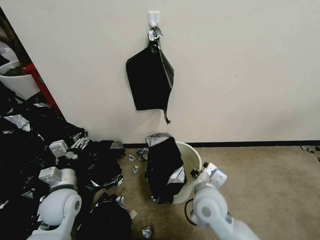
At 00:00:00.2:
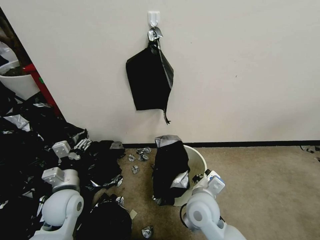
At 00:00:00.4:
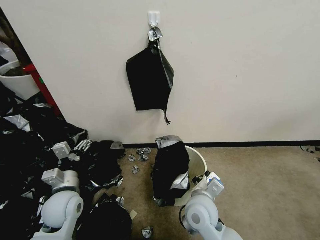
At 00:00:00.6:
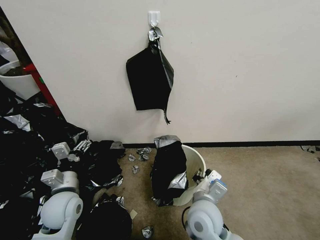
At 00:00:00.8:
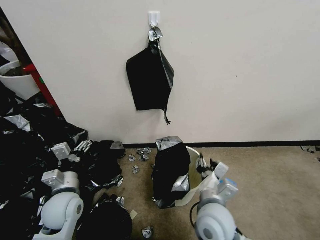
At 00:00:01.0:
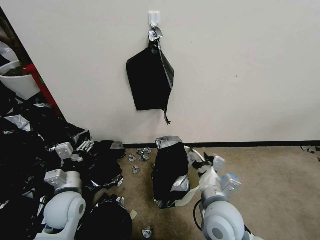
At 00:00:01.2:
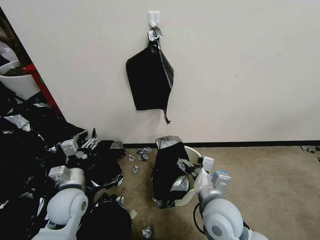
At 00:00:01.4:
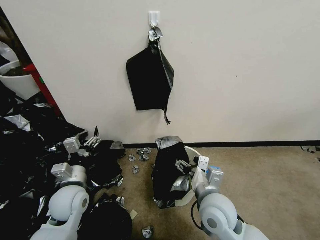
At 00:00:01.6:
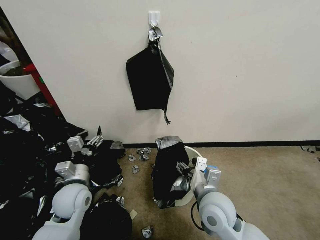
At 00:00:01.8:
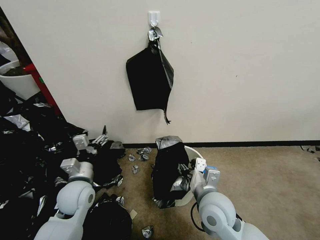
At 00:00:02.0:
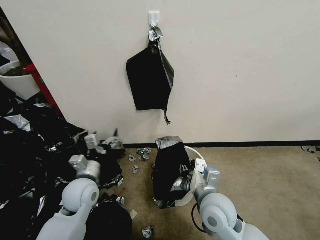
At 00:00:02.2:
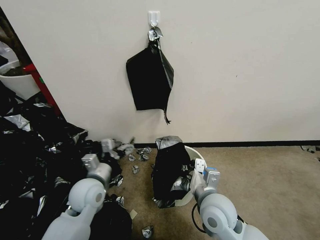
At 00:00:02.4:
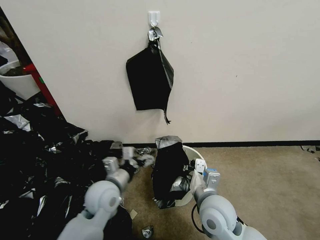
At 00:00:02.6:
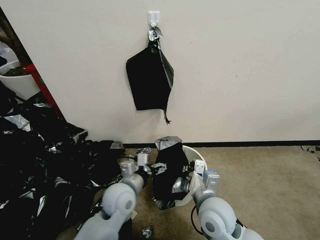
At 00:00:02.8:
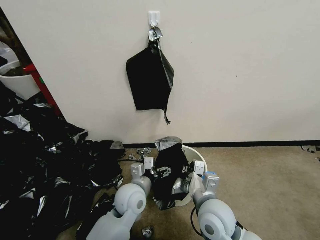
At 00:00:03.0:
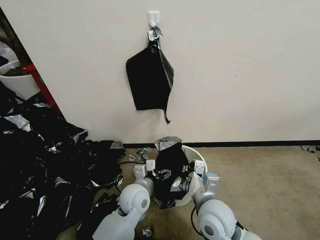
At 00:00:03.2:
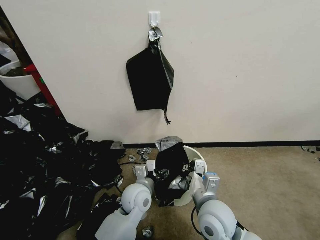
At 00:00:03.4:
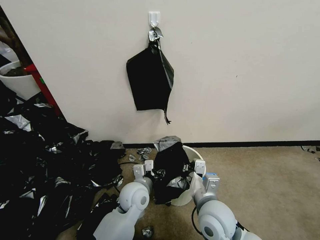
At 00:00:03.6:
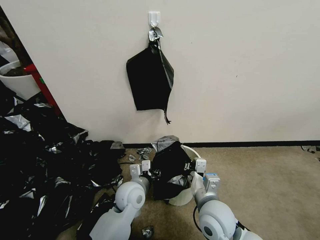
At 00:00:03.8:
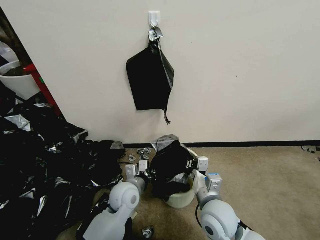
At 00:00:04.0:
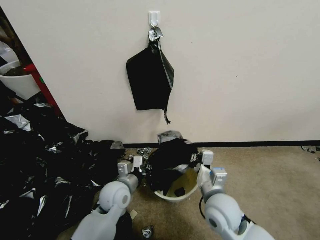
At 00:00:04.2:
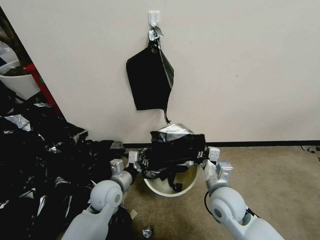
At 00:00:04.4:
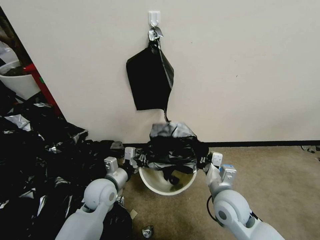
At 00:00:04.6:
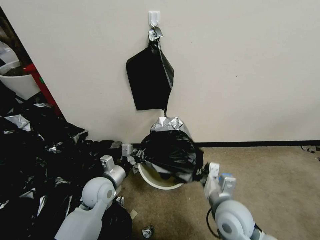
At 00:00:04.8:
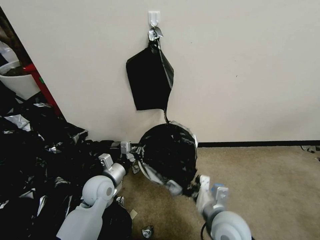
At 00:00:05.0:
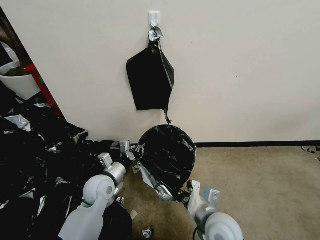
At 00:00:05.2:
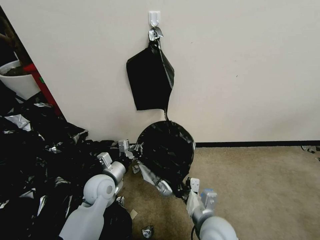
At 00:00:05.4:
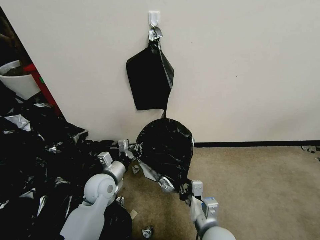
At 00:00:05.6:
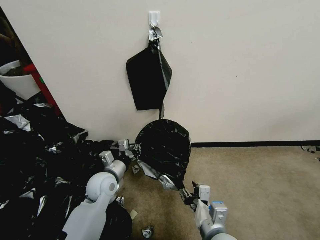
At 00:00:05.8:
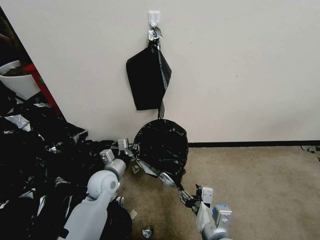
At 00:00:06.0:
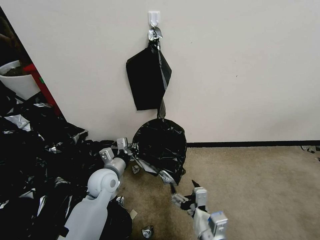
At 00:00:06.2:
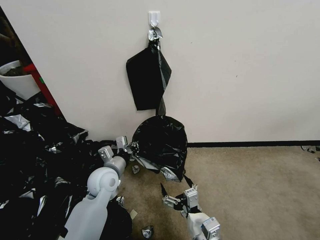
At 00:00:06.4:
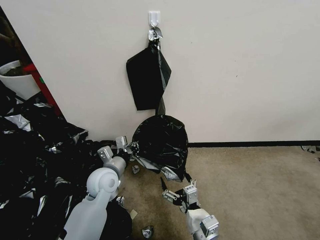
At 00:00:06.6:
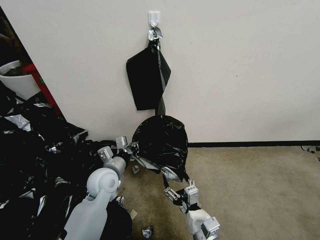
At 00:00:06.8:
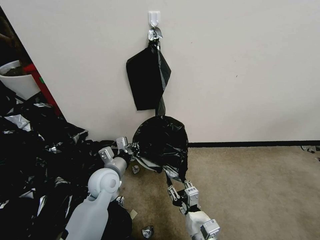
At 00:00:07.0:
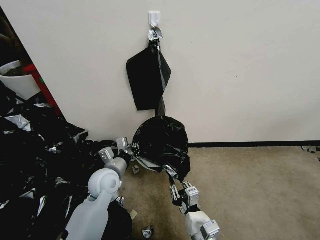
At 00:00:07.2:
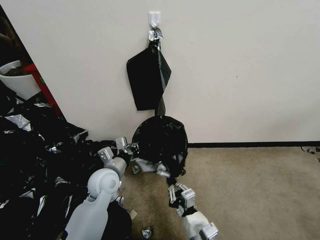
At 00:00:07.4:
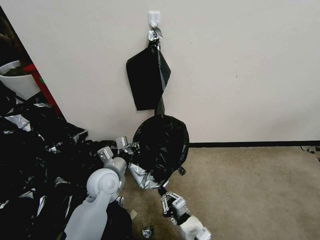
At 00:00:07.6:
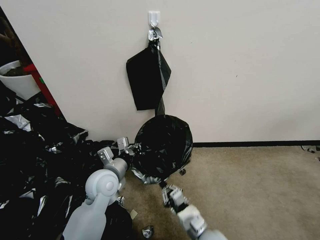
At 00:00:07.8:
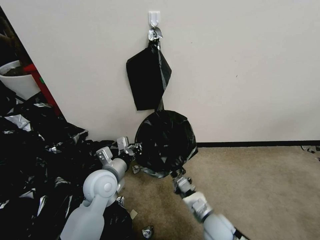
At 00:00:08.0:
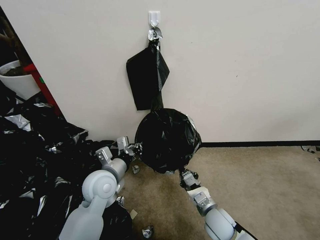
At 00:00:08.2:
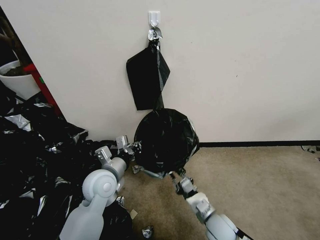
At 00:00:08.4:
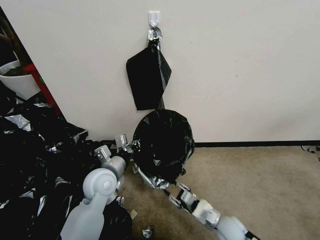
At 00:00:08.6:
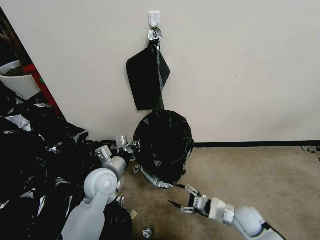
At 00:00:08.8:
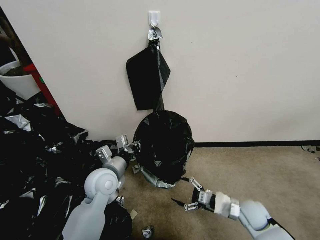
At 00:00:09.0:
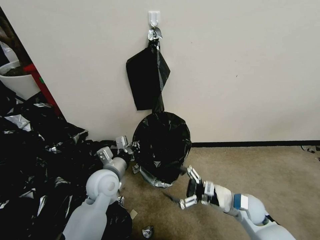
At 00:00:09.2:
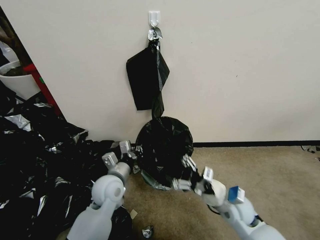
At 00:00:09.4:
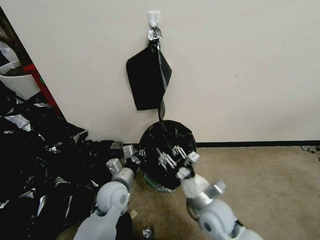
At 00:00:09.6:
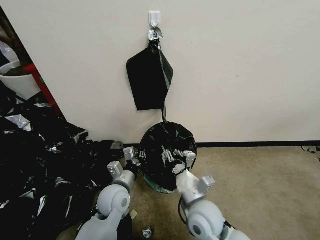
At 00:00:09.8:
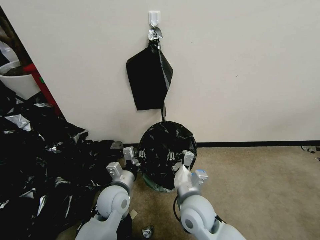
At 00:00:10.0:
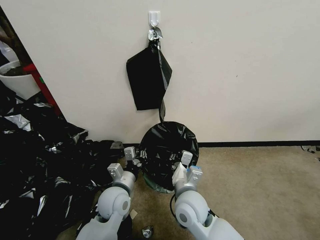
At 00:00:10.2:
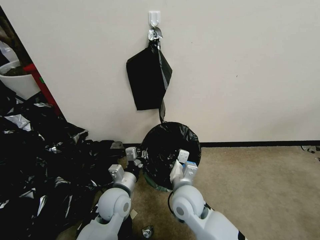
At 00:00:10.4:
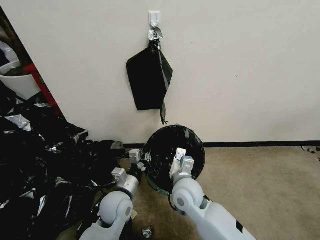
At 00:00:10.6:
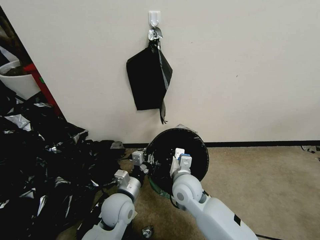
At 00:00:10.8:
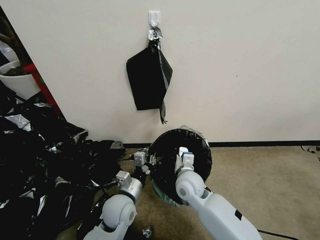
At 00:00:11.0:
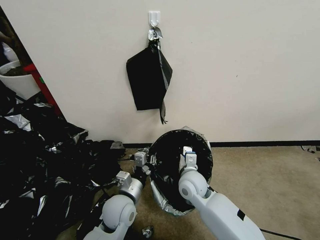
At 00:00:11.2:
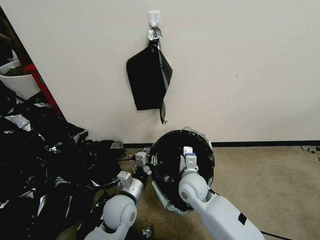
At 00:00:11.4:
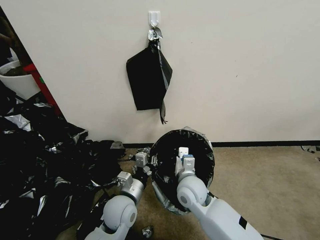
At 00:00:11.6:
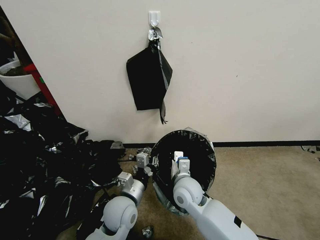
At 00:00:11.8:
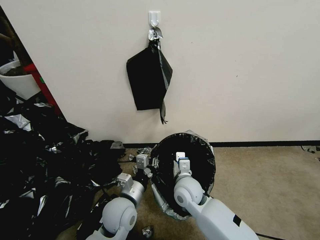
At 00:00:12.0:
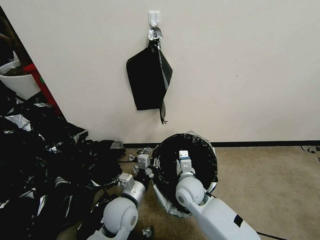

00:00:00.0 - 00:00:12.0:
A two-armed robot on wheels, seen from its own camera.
Task of the whole recording: Place a trash bag onto the trash bin.
00:00:00.0 - 00:00:01.6: The right gripper opens up.
00:00:01.6 - 00:00:03.0: The right gripper closes its fingers, while the left gripper is displaced to the right by roughly 20 cm.
00:00:03.0 - 00:00:04.4: The right gripper heads to the right, covering roughly 5 cm, while the left gripper travels to the left by about 10 cm, and closes its fingers.
00:00:04.4 - 00:00:06.0: The right gripper shifts some 15 cm backward, and opens up.
00:00:06.0 - 00:00:07.6: The right gripper moves downward and forward, about 10 cm, and closes up.
00:00:07.6 - 00:00:09.0: The right gripper travels to the right and forward by roughly 15 cm, and opens its fingers.
00:00:09.0 - 00:00:10.4: The right gripper is displaced to the left by approximately 20 cm, and closes up. Meanwhile the left gripper travels downward by some 5 cm.
00:00:10.4 - 00:00:12.0: The right gripper ends up some 5 cm from where it was.

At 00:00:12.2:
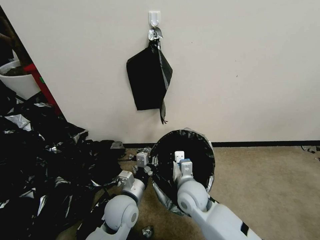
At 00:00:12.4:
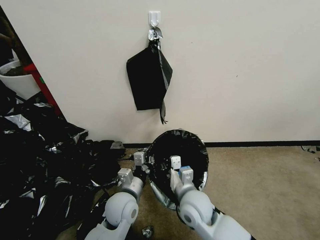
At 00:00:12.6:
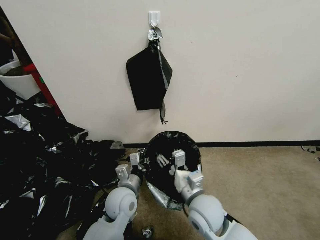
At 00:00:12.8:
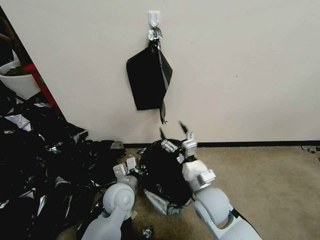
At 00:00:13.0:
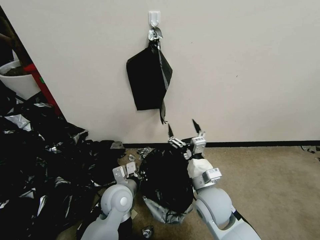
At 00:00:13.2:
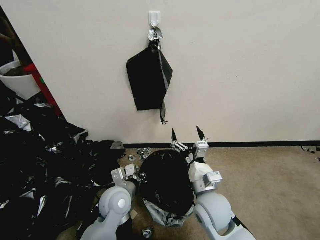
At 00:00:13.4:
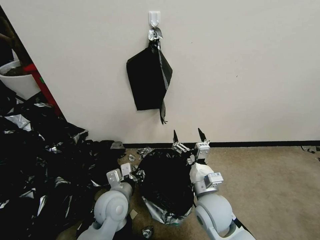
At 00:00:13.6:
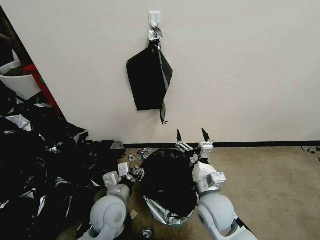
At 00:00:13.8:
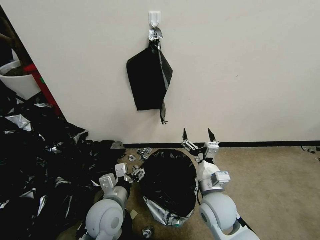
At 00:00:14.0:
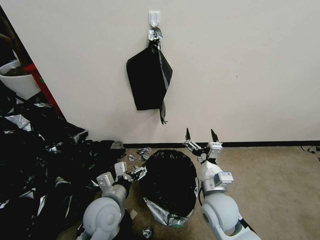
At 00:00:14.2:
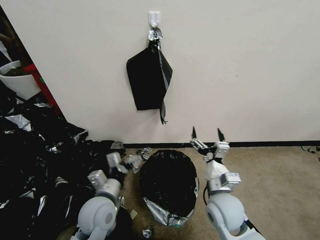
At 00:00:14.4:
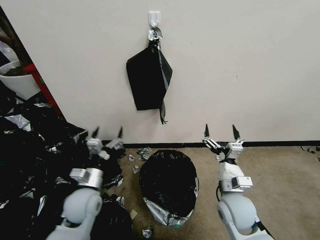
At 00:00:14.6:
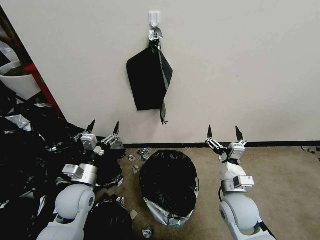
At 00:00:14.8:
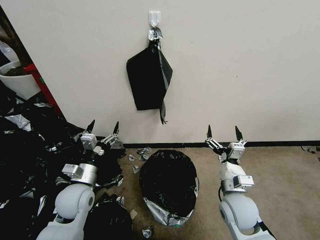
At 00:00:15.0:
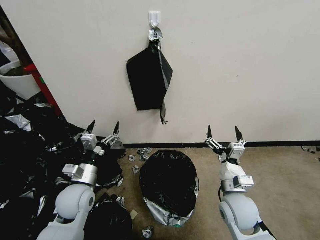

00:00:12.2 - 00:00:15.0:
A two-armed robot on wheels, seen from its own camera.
Task of the whole recording: Place a trash bag onto the trash bin.
00:00:12.2 - 00:00:13.6: The right gripper travels to the right and backward by about 5 cm, and opens up. Meanwhile the left gripper opens.
00:00:13.6 - 00:00:15.0: The left gripper shifts roughly 10 cm to the left, and opens its fingers. Meanwhile the right gripper travels to the right by some 5 cm.
